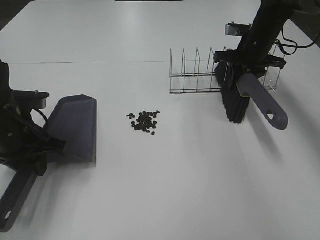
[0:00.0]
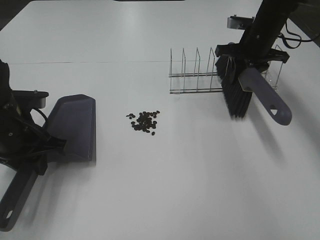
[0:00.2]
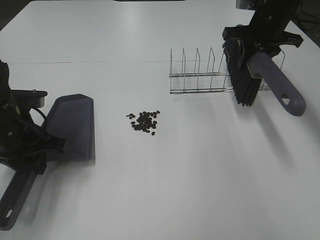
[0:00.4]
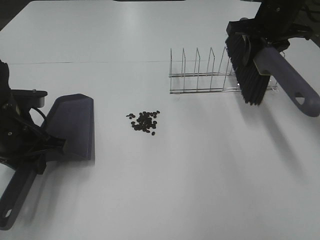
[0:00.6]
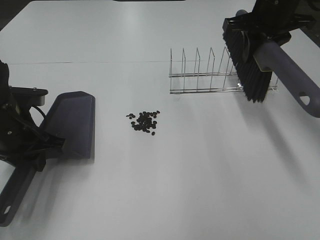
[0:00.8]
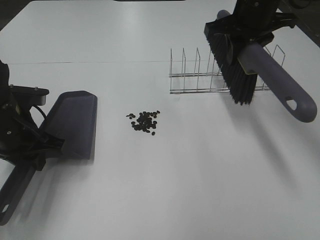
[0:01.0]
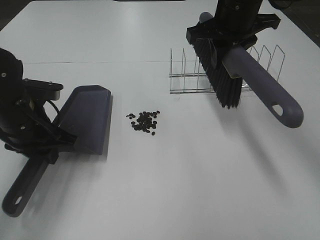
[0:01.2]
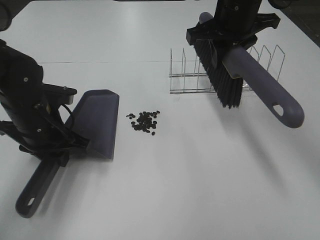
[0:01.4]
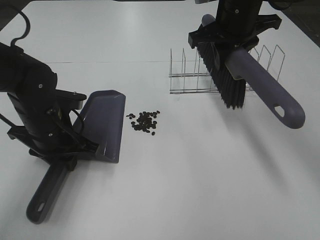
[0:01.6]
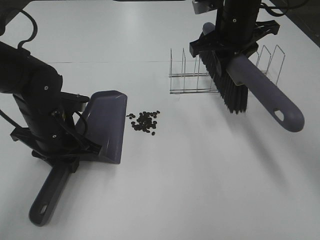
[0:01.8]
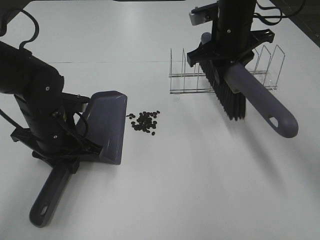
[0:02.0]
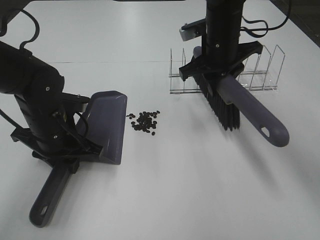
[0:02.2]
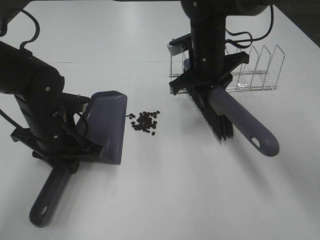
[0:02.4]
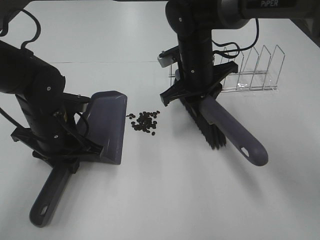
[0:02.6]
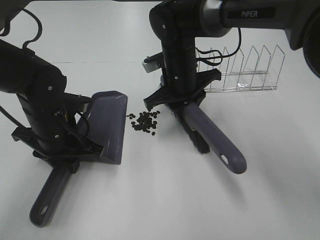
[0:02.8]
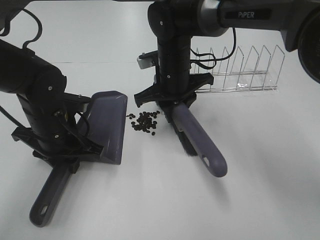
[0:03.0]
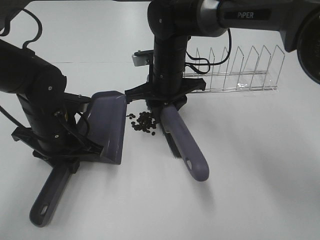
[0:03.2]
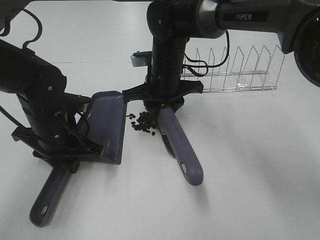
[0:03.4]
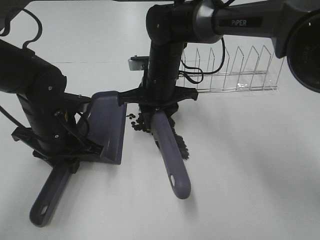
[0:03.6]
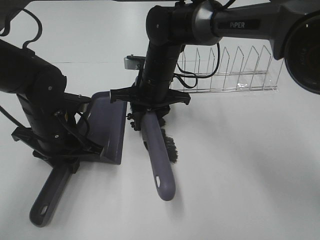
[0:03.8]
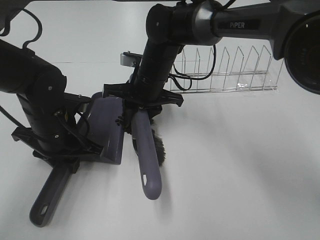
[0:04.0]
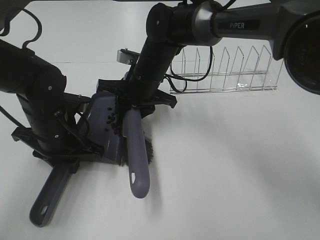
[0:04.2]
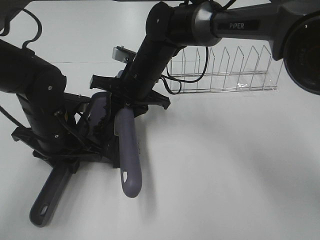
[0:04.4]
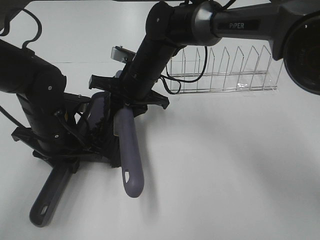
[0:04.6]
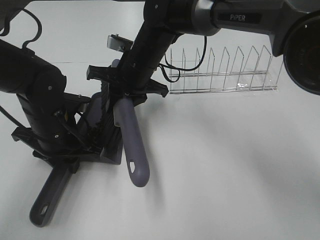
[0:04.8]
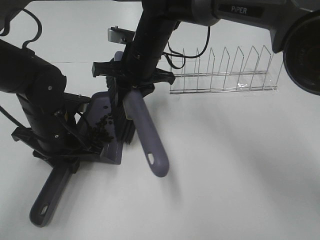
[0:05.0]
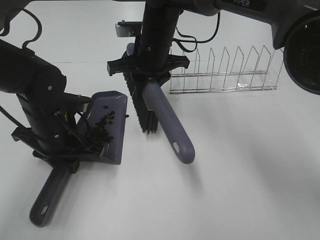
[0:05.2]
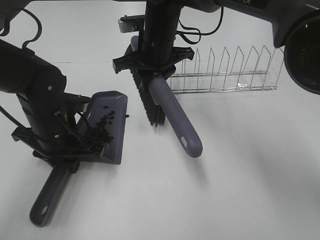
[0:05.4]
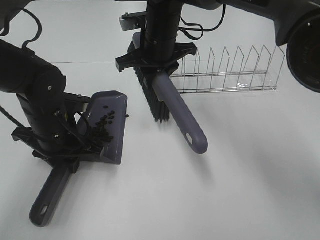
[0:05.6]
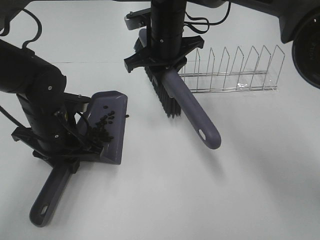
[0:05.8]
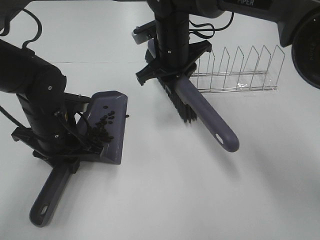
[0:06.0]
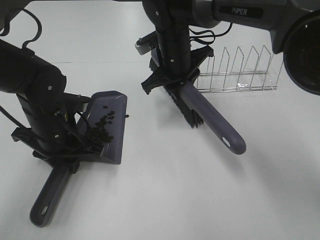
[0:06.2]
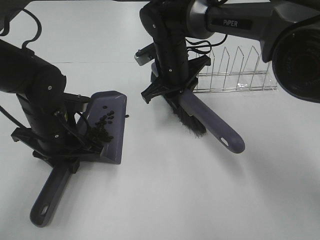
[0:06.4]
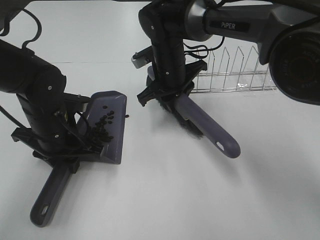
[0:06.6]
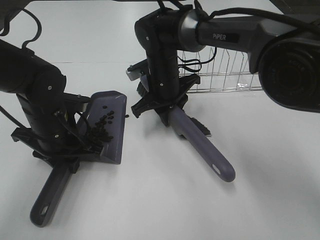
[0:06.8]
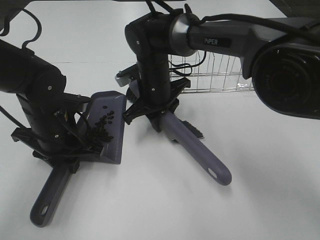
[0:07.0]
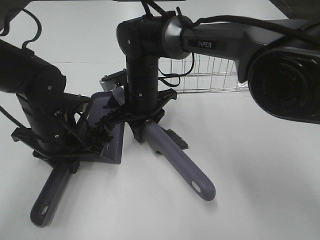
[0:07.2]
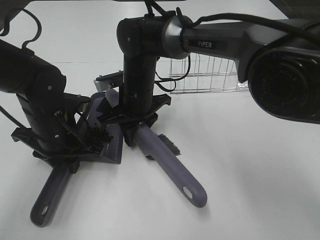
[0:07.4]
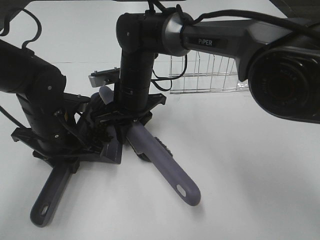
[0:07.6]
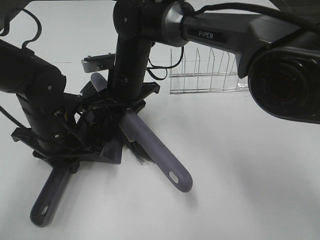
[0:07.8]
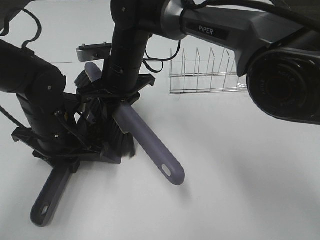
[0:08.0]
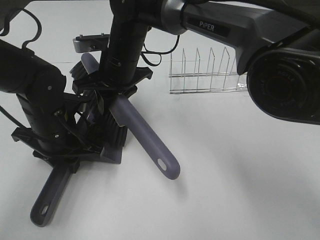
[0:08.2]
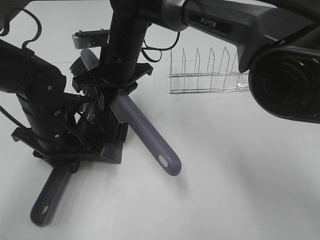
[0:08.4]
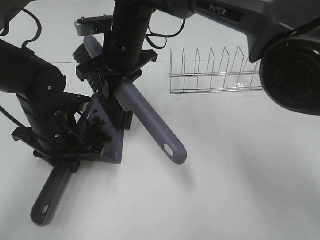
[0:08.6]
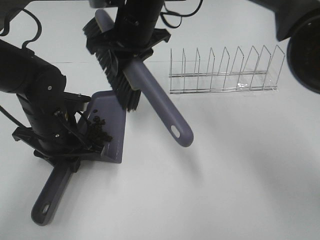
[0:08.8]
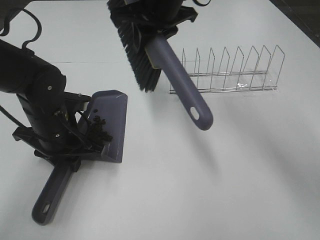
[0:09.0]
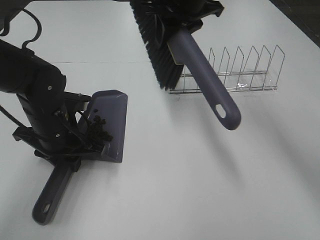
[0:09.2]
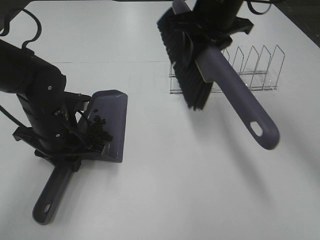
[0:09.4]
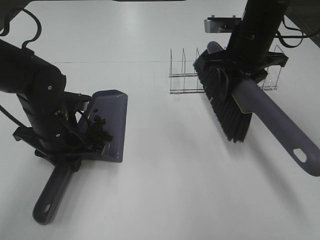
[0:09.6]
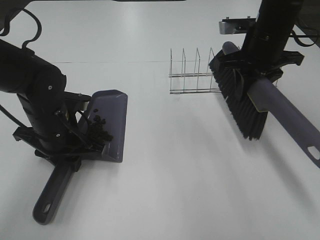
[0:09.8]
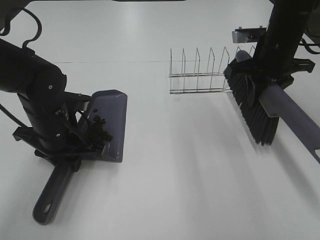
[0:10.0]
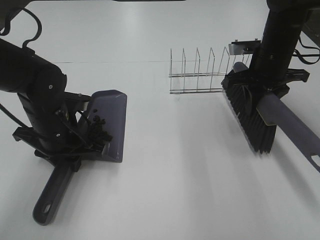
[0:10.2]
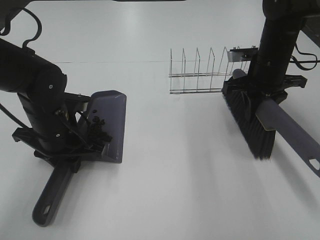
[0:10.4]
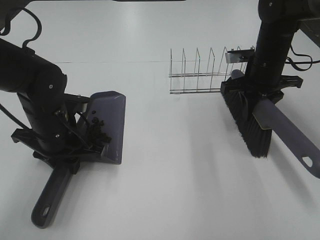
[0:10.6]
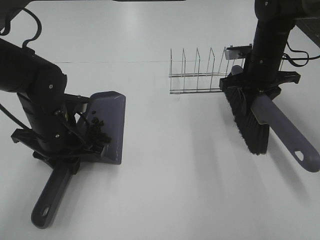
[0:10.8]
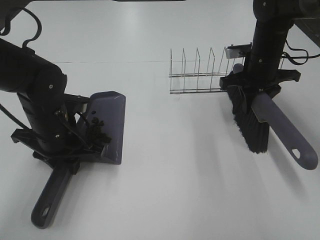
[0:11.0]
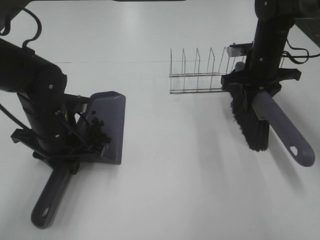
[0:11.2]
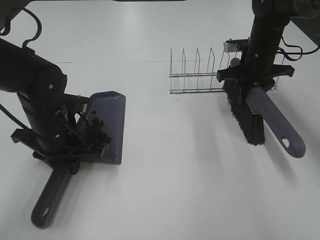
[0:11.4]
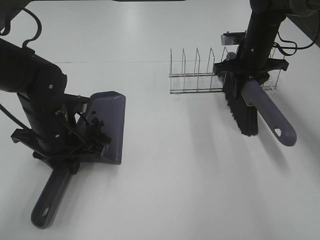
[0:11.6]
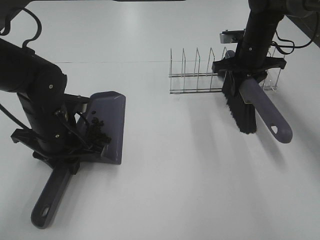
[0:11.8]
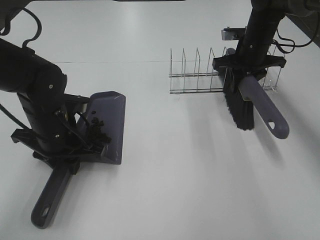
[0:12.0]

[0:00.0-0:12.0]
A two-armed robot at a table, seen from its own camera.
Task of the whole recording: Sweep Coffee Bean.
Step, 0:00.0 to 0:02.0: Left hand: move the dustpan to the left side of the coffee beans.
Step, 0:00.0 to 0:08.4: Right hand:sweep the coffee beans into the dustpan.
0:00.0 to 0:01.6: The right gripper shifts about 15 cm upward, to the left and backward. Meanwhile the left gripper shifts about 5 cm to the right.
0:01.6 to 0:03.0: The right gripper is displaced downward and to the left by roughly 15 cm.
0:03.0 to 0:04.4: The right gripper is displaced to the left by about 5 cm.
0:04.4 to 0:06.0: The right gripper heads to the right, covering some 5 cm.
0:06.0 to 0:07.6: The right gripper travels to the left and downward by about 10 cm.
0:07.6 to 0:09.0: The right gripper travels upward and to the right by about 15 cm.
0:09.0 to 0:10.4: The right gripper goes approximately 25 cm to the right and downward.
0:10.4 to 0:12.0: The right gripper goes roughly 10 cm forward.

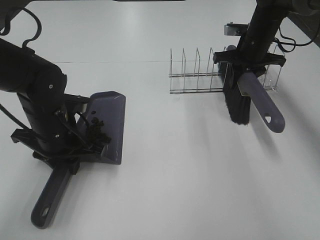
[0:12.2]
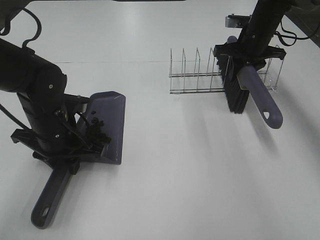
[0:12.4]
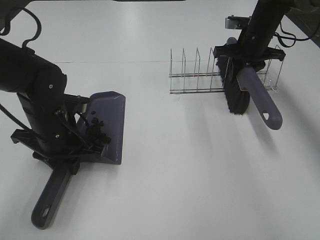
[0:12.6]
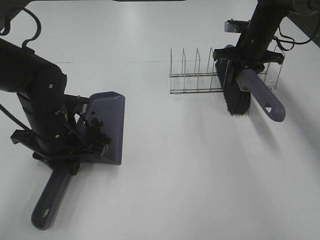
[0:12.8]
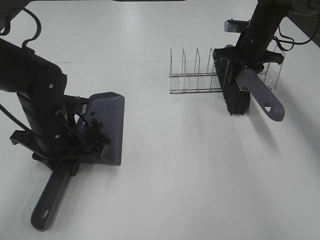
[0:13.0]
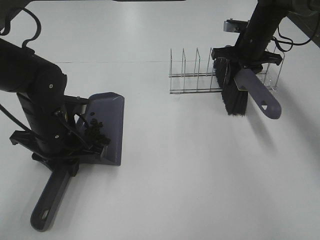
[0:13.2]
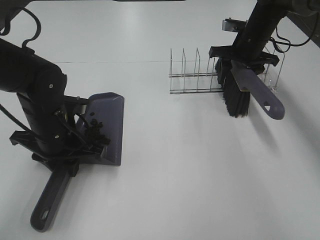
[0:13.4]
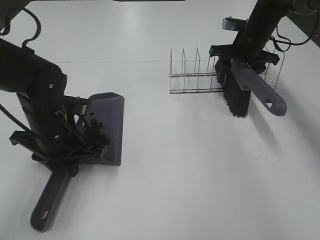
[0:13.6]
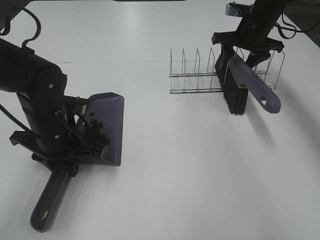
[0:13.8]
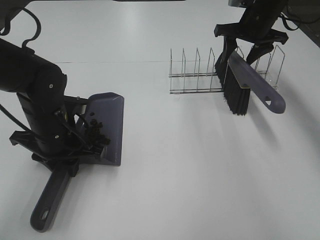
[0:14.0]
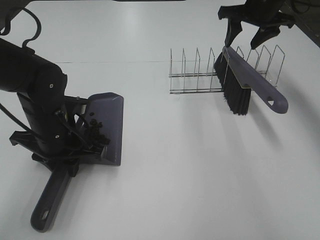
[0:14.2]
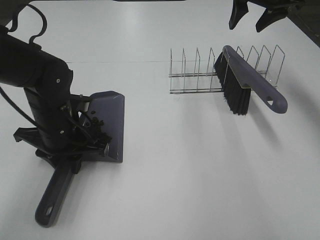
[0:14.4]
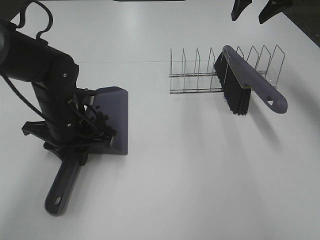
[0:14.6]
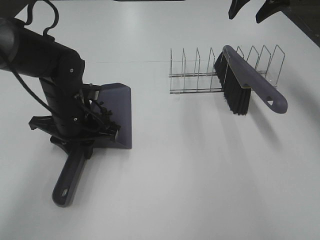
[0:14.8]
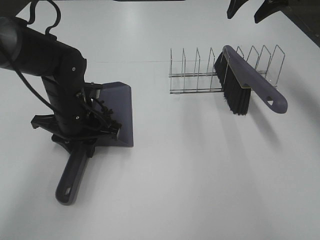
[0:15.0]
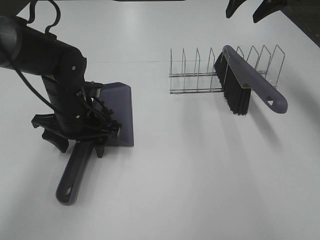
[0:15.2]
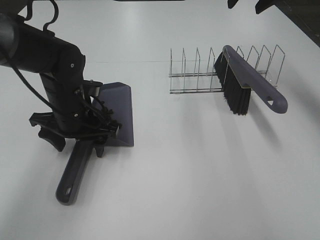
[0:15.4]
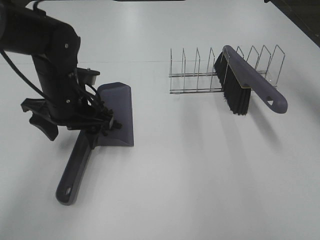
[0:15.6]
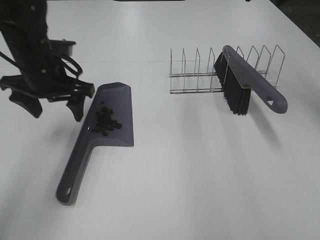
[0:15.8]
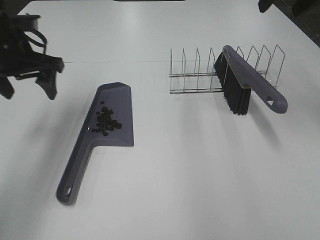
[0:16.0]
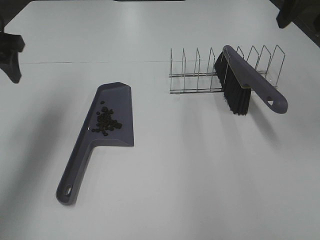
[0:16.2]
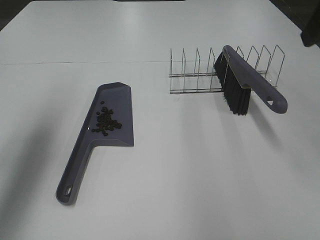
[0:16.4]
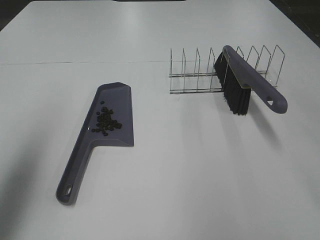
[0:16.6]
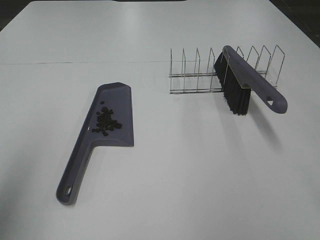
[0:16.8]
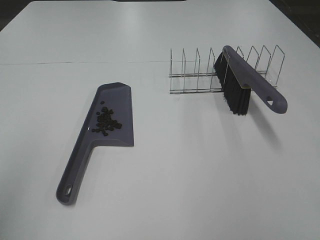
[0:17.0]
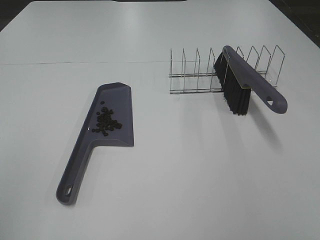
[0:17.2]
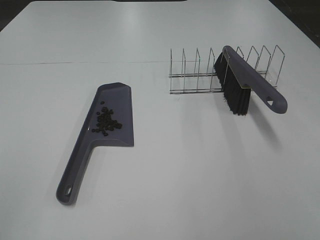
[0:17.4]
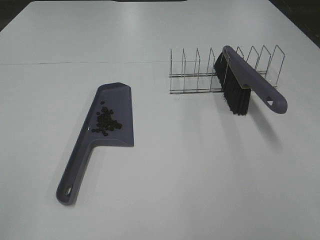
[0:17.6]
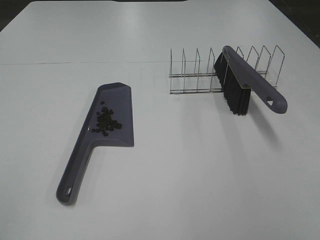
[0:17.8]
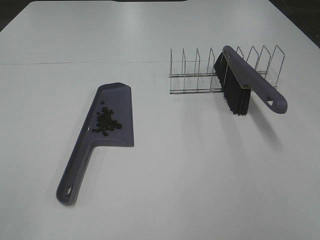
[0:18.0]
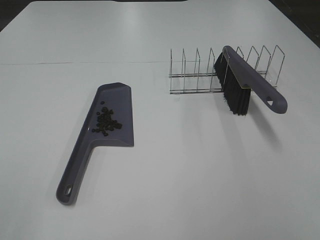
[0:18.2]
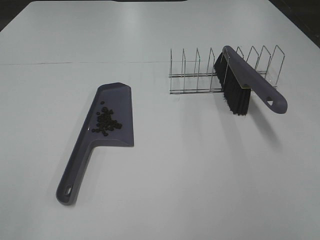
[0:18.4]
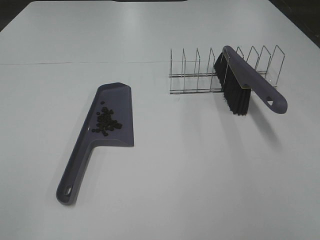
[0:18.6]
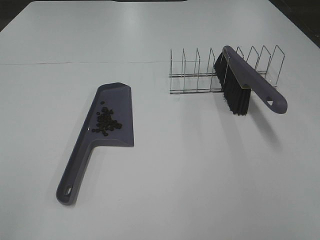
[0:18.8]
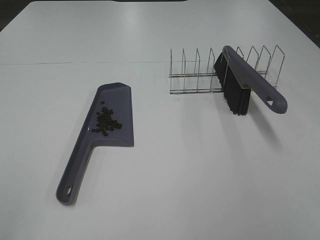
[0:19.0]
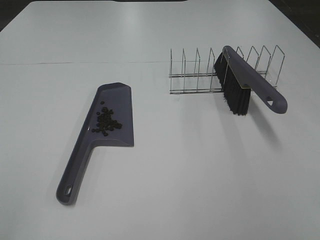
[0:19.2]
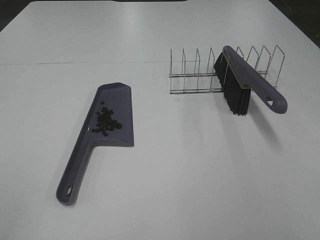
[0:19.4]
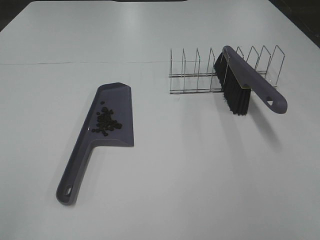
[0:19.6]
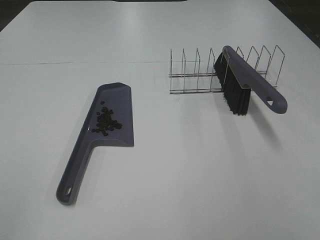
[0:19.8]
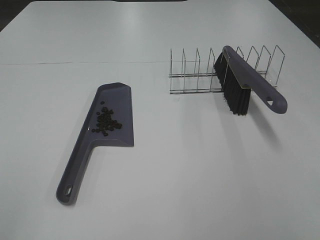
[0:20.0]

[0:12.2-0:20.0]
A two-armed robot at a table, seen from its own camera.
Task of the whole recording: Sweep Coffee Bean.
Step, 0:14.0 to 0:15.6: Left hand:place the dustpan on the table.
0:12.2 to 0:13.8: The right gripper opens its fingers.
0:13.8 to 0:15.4: The right gripper shifts approximately 15 cm upward; the left gripper ends up roughly 5 cm from where it was, and opens its fingers.
0:15.4 to 0:16.8: The right gripper is displaced backward by some 35 cm; the left gripper shifts some 35 cm upward, backward and to the left.
0:16.8 to 0:18.4: The left gripper is displaced backward by some 15 cm.

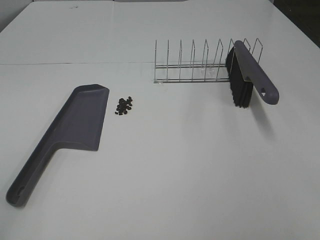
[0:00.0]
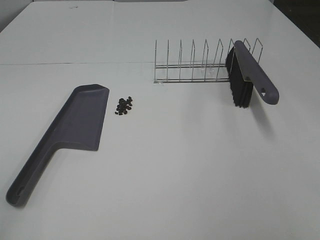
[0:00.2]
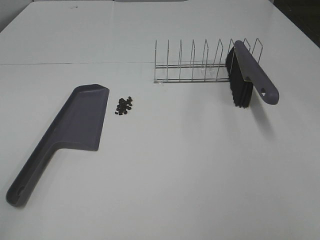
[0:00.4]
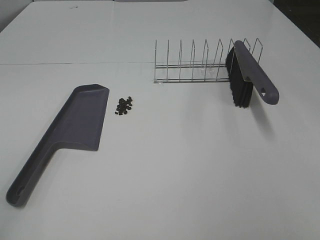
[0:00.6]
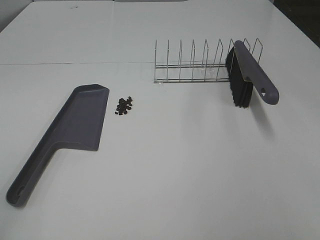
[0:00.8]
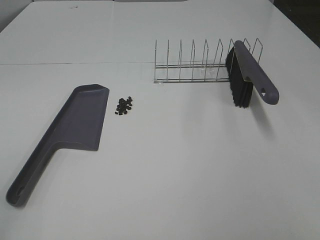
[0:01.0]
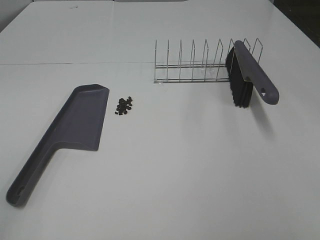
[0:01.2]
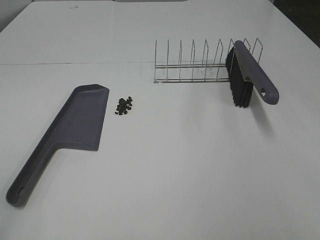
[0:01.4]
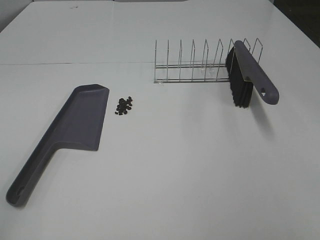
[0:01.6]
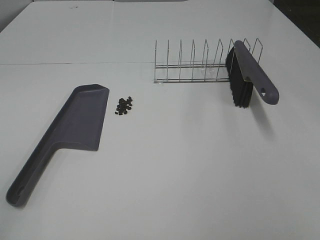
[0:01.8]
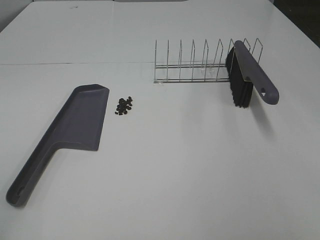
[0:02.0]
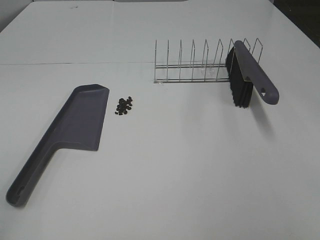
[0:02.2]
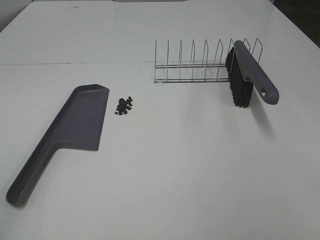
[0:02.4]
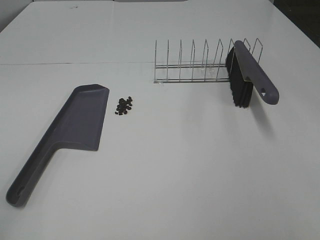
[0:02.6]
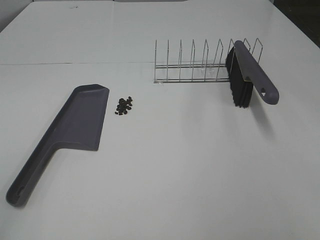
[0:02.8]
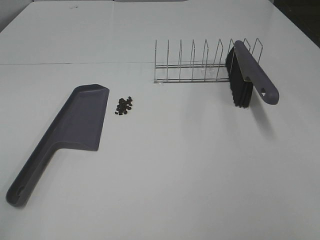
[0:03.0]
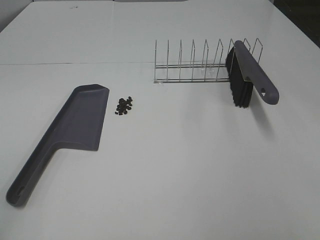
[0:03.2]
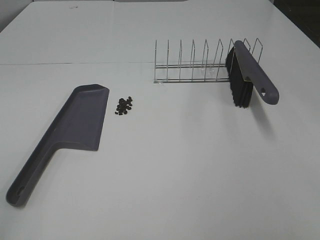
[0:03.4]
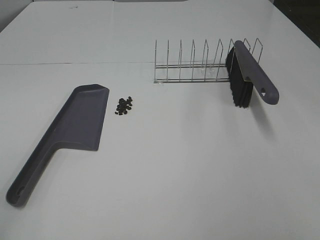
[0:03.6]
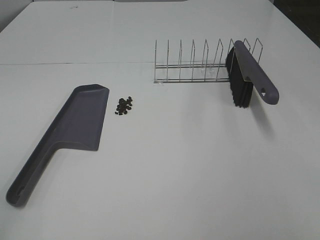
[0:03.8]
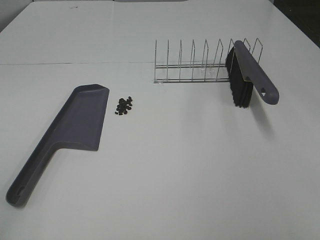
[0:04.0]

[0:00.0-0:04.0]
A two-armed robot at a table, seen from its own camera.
Task of the whole recording: Sweep Coffee Bean.
0:00.0 to 0:04.0: Both grippers stay put.
